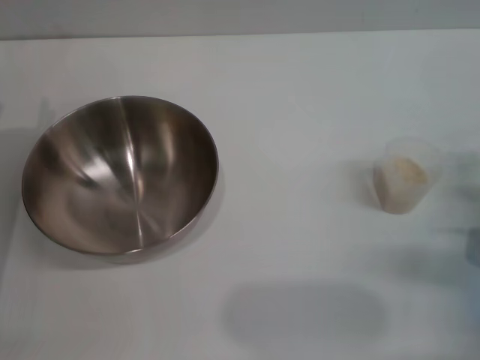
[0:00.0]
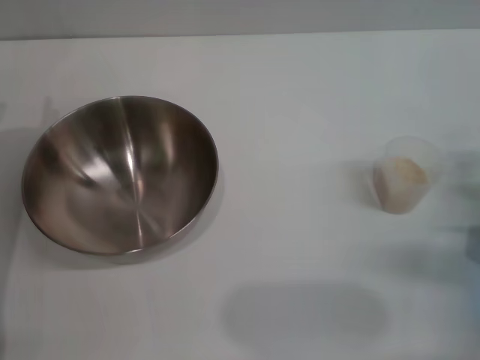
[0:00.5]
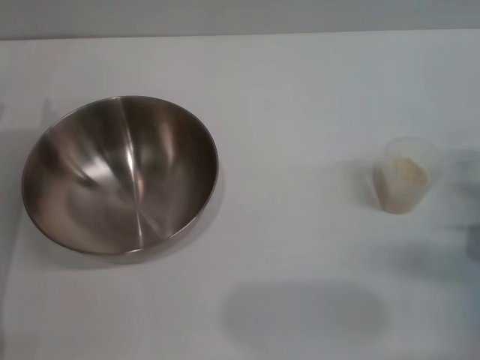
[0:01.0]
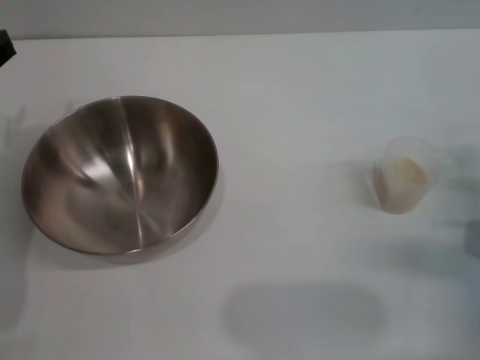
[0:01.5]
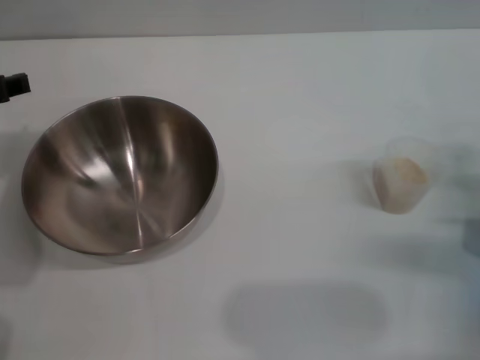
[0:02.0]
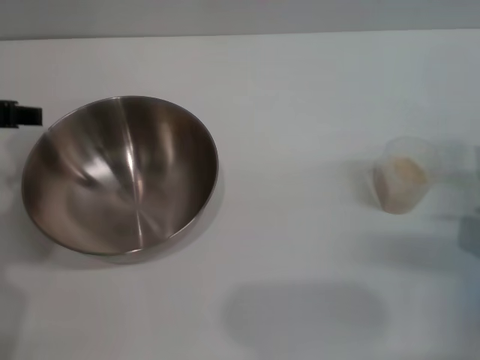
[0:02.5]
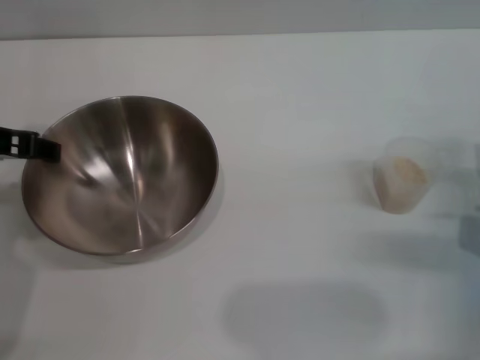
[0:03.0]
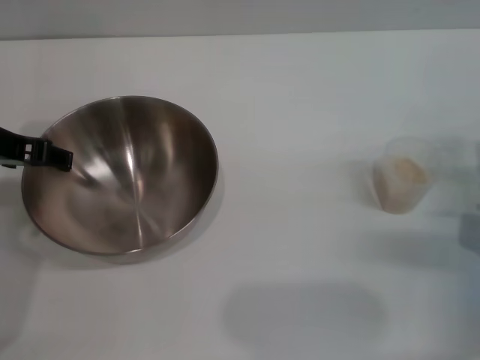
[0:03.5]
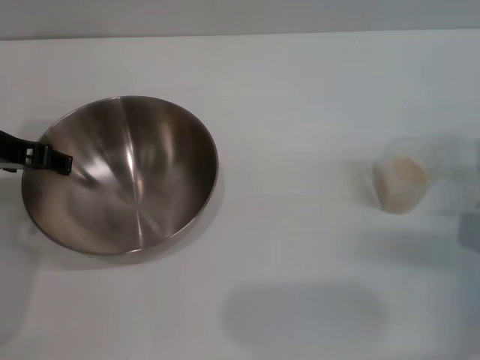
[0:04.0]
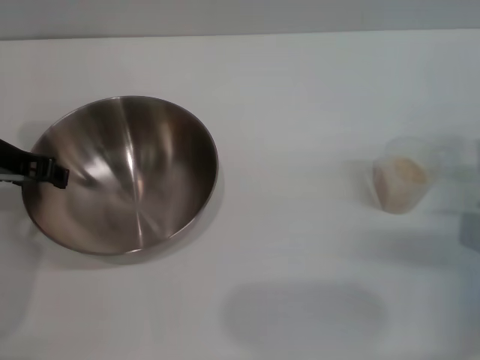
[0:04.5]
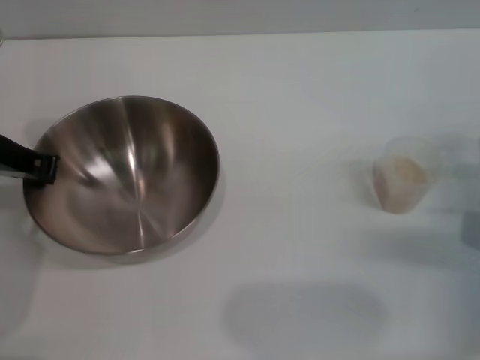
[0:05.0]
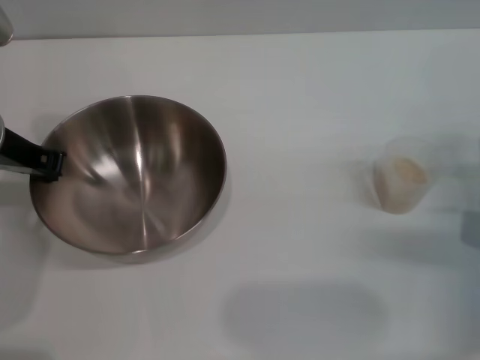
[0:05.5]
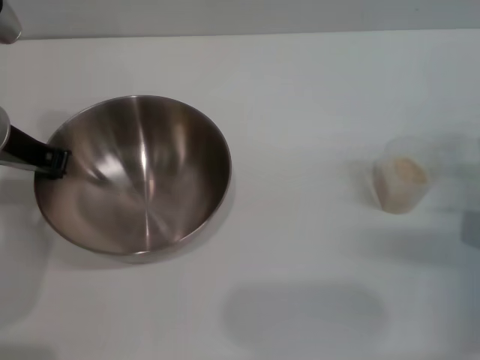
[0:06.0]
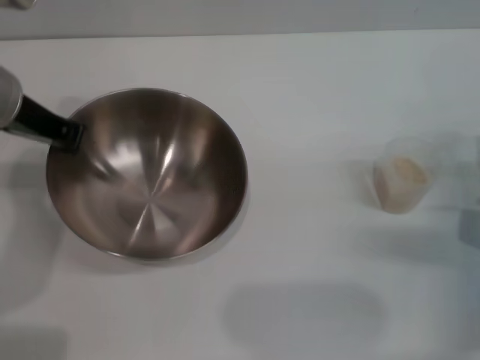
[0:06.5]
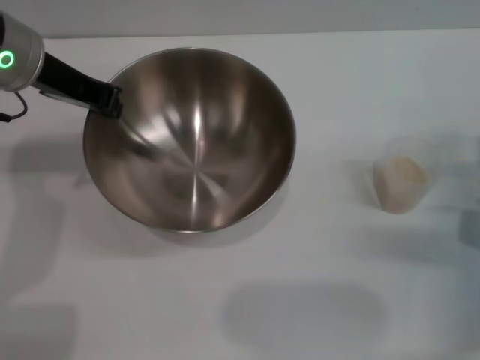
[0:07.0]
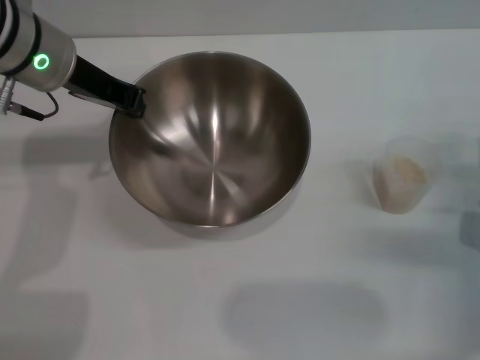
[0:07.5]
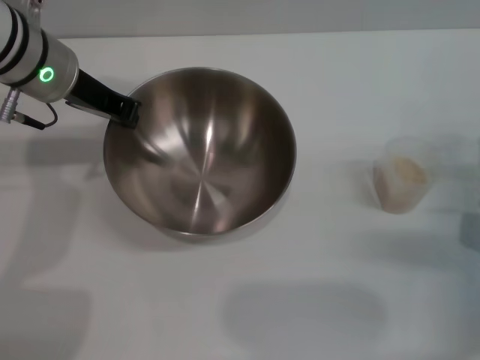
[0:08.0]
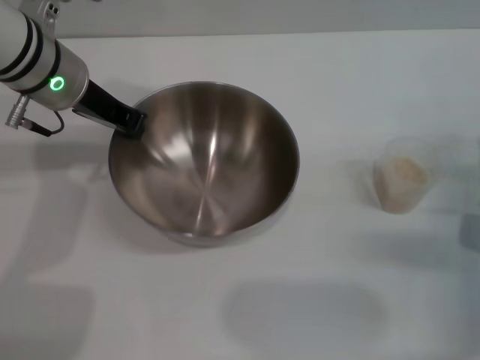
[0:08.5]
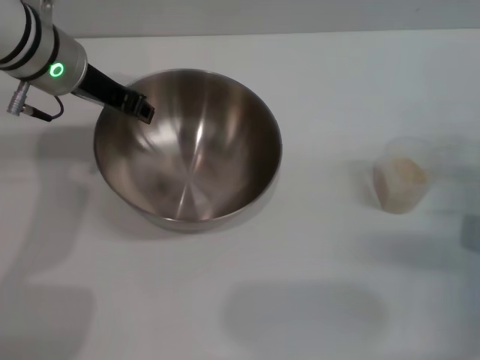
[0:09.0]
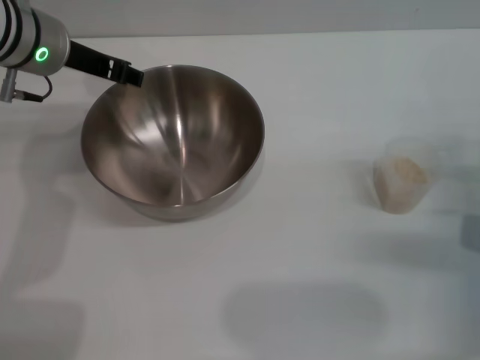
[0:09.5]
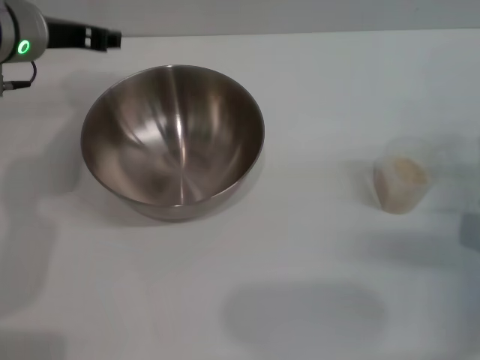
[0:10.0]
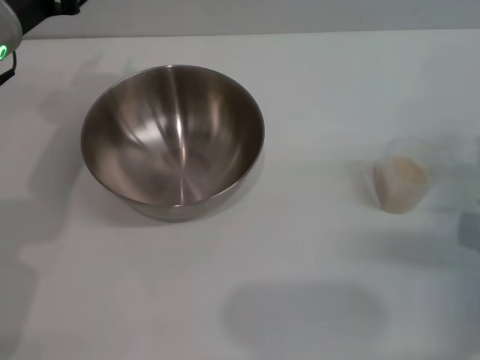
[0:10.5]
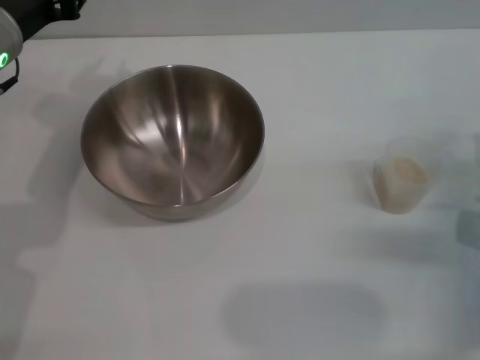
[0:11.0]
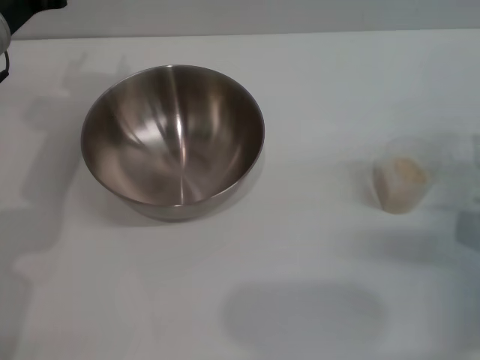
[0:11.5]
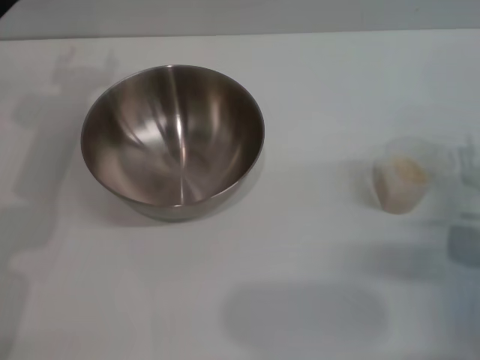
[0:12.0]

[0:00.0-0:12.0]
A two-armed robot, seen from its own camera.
Task of the whole recording: Place the bowl in the middle of the table with one hand and pour the rice from the grain cup into it with the other hand.
Step, 0:00.0 to 0:06.5: Pick up the bowl with the left gripper.
Step, 0:07.0 to 0:10.0: Place the bowl in the center of view with the left gripper.
0:04.0 to 0:06.0: The left gripper closes.
0:06.0 to 0:08.0: The left gripper goes roughly 5 cm forward.
0:08.0 to 0:10.0: The left gripper opens its fingers.

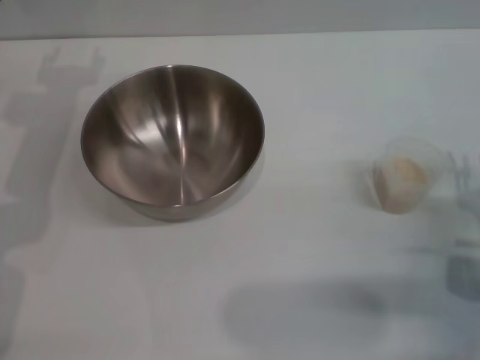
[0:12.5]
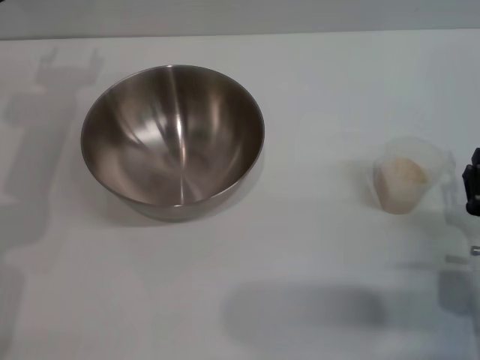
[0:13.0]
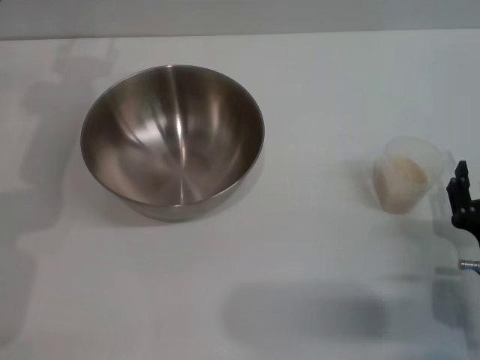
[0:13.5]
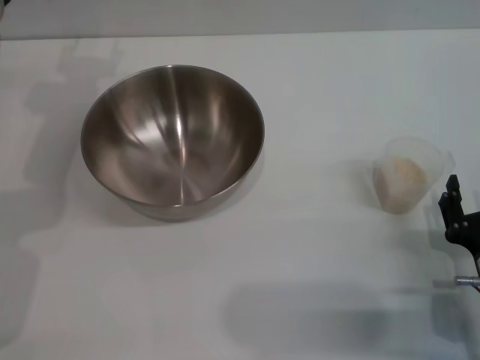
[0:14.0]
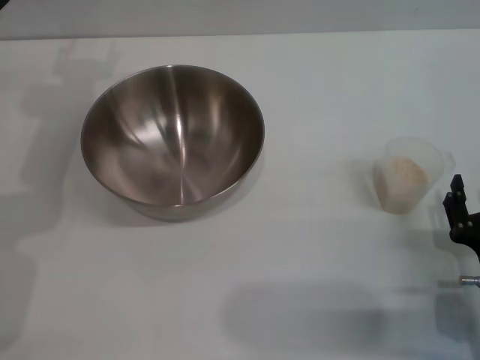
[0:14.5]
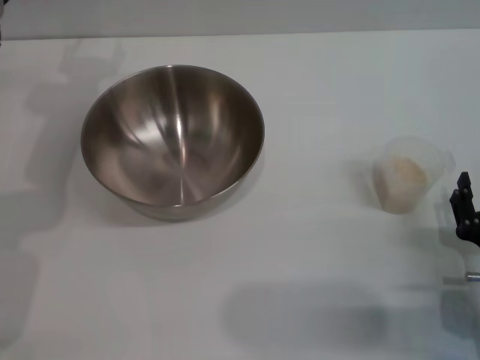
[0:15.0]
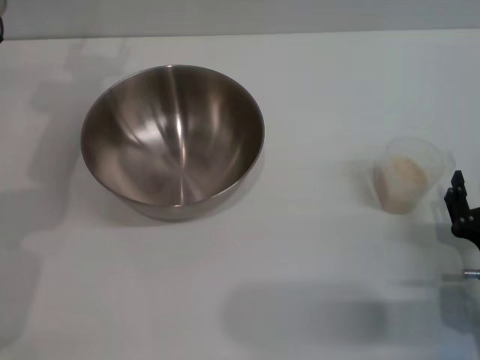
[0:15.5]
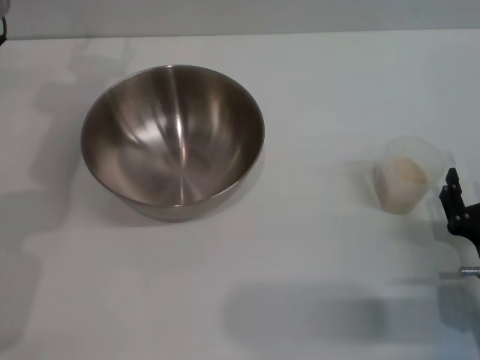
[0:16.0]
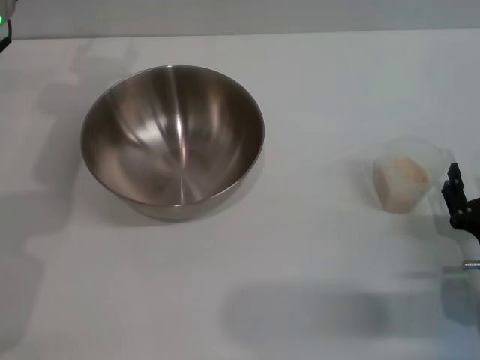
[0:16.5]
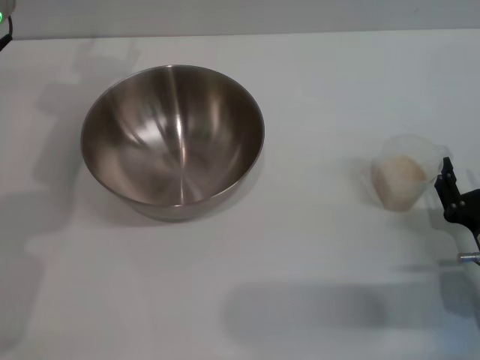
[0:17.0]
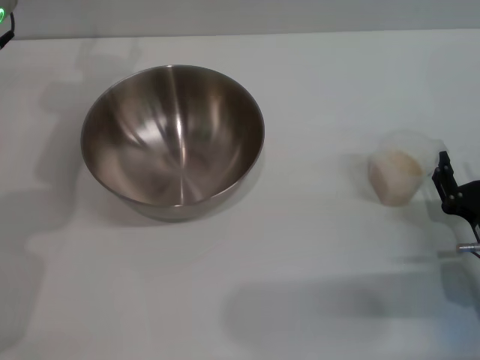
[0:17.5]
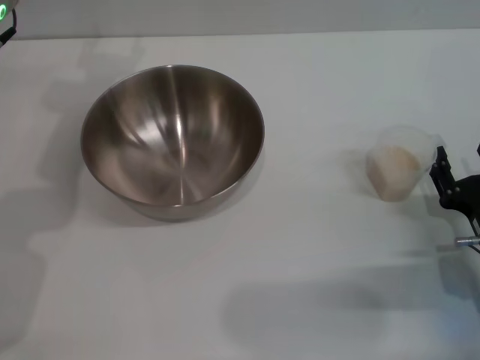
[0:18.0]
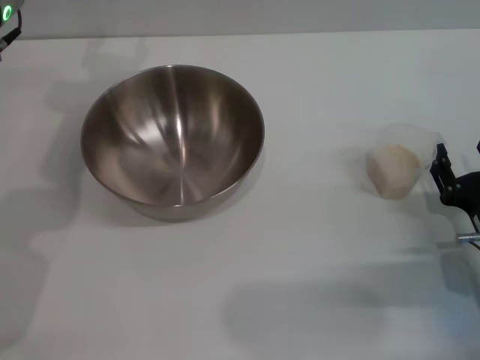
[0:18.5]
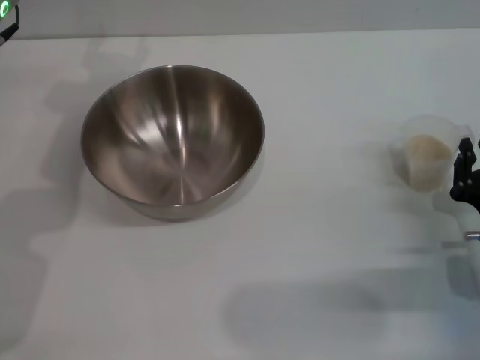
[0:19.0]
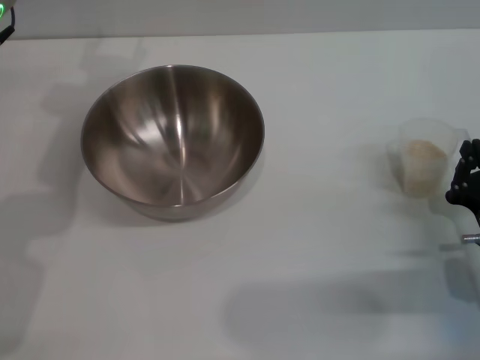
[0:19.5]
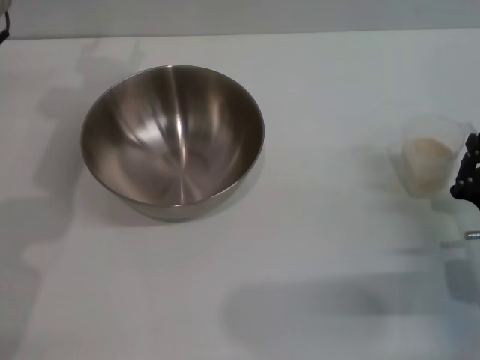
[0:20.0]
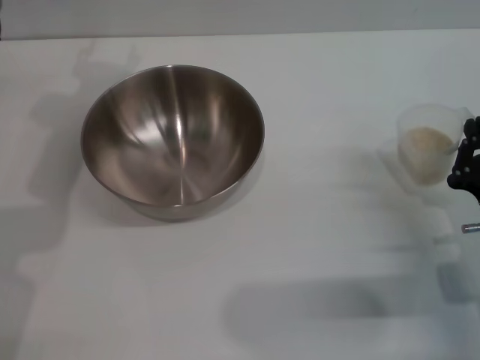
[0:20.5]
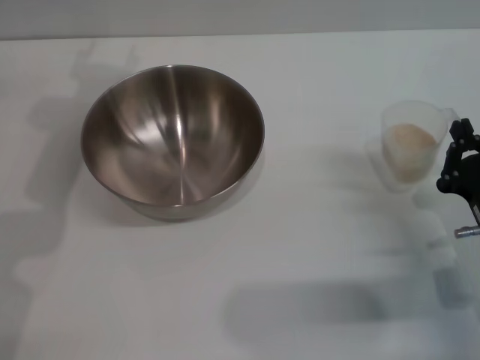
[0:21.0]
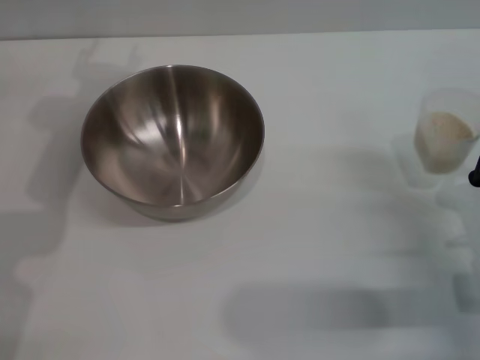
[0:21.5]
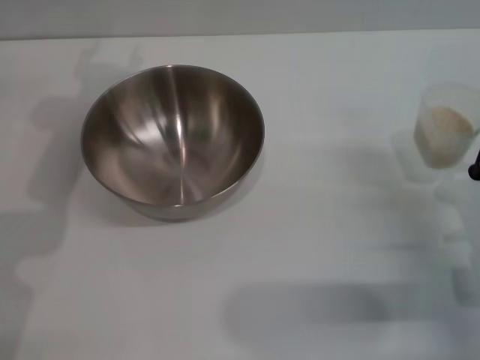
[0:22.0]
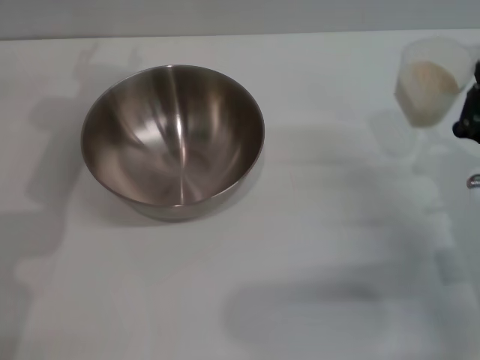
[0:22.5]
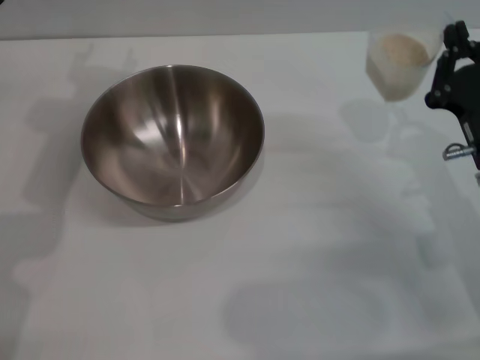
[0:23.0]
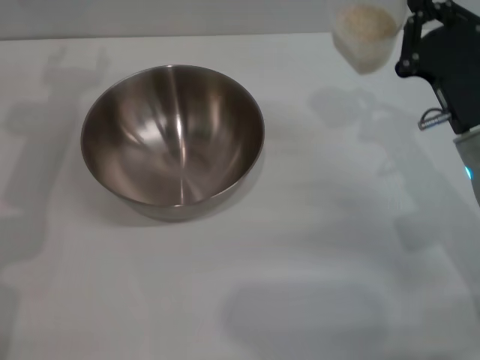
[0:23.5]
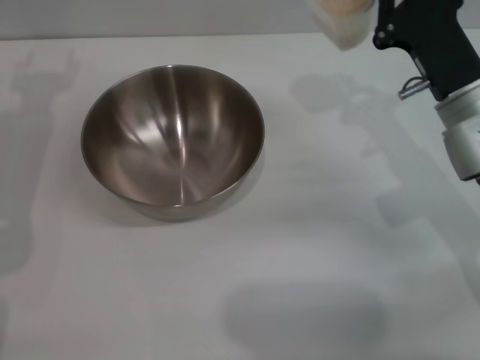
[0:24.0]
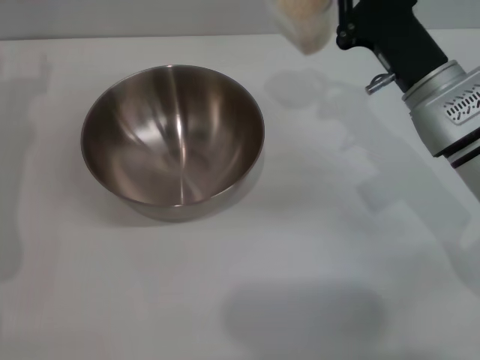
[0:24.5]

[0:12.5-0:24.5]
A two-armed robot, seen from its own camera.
Task of the whole recording: Place the bowl in the middle of the table with one hand and pour the rice from the grain cup into it with the other hand.
Step, 0:12.5 to 0:21.0: Pick up the cup with rice in it with the right gripper.
0:12.5 to 0:18.5: The grippers stay close to where they were, moving slightly.
0:18.5 to 0:20.5: The right gripper closes up.
0:20.5 to 0:22.5: The grippers move only a little.
0:22.5 to 0:24.5: The left gripper moves to the left, roughly 5 cm. The right gripper travels forward, to the left and upward by about 15 cm.

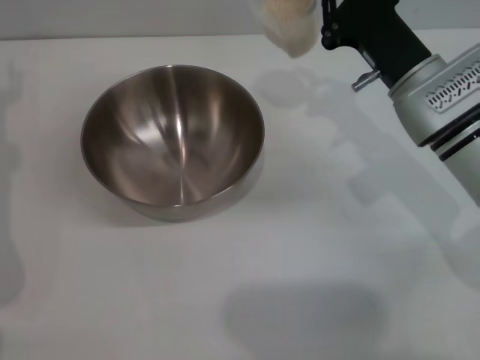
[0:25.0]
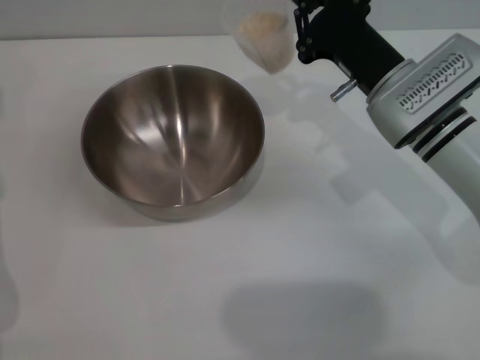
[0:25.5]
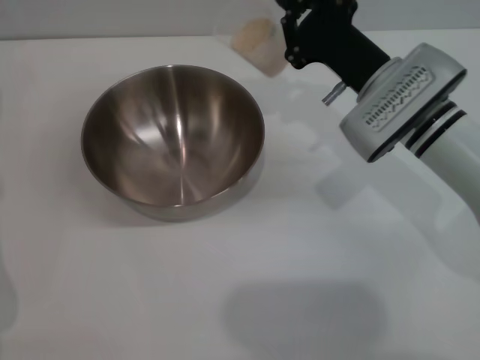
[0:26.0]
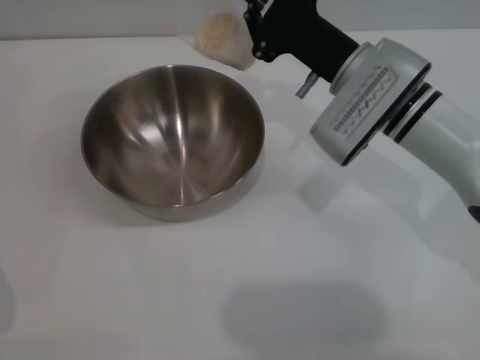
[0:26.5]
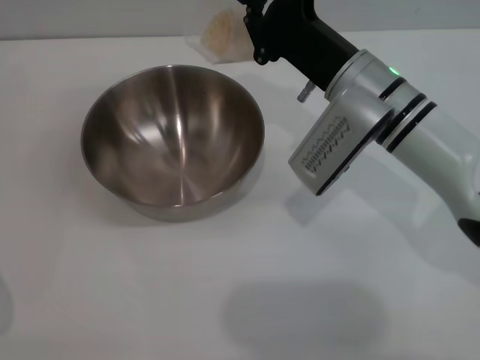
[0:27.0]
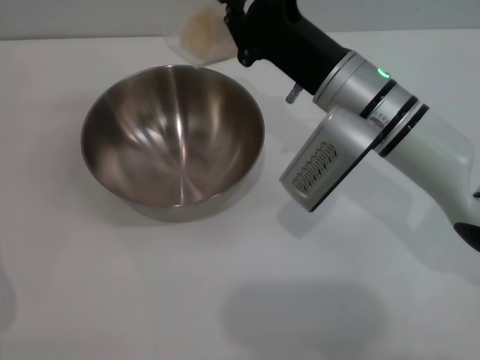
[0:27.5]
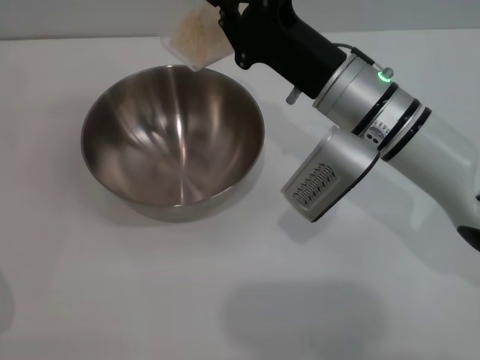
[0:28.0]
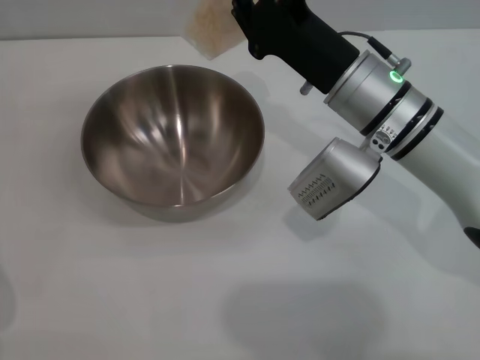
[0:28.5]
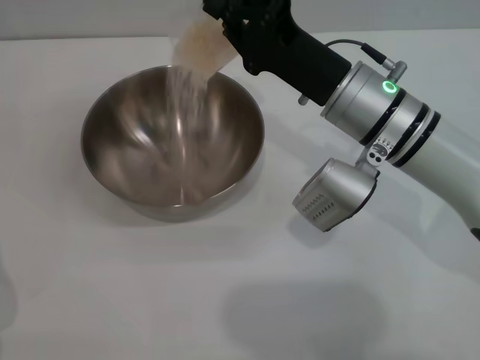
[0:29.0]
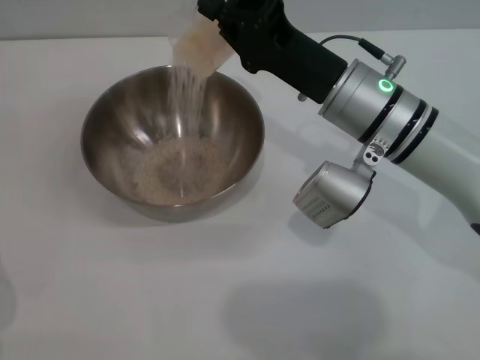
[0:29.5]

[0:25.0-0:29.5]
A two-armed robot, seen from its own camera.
Task of the whole recording: Place the bowl in the middle of the table with one hand and pour the rice from the grain cup into it with the other hand.
0:25.0 to 0:27.0: The right gripper shifts roughly 5 cm to the left. The left gripper moves roughly 5 cm.
